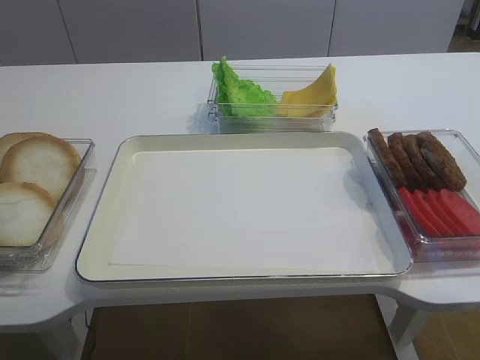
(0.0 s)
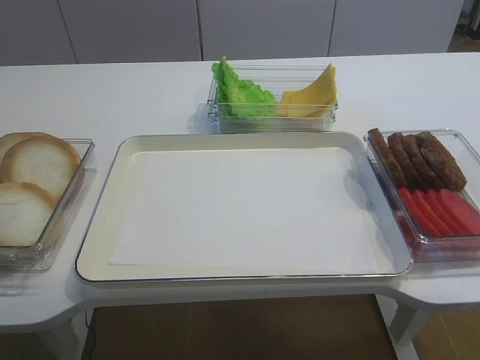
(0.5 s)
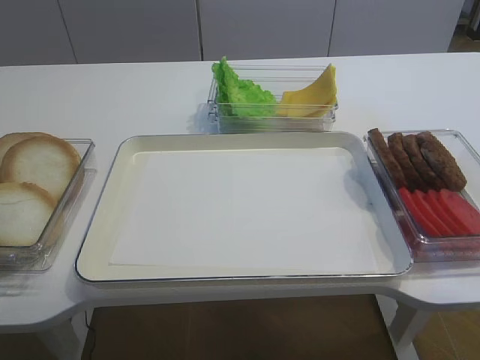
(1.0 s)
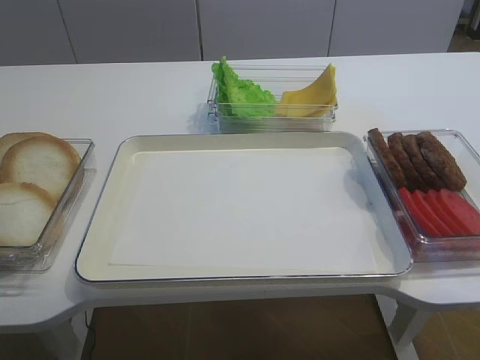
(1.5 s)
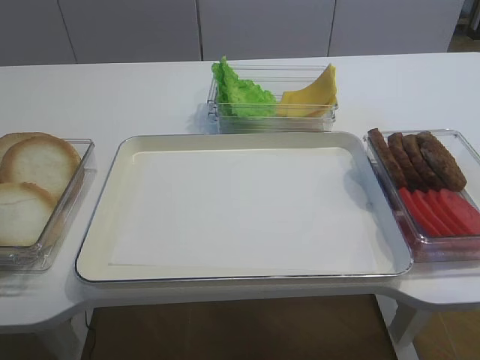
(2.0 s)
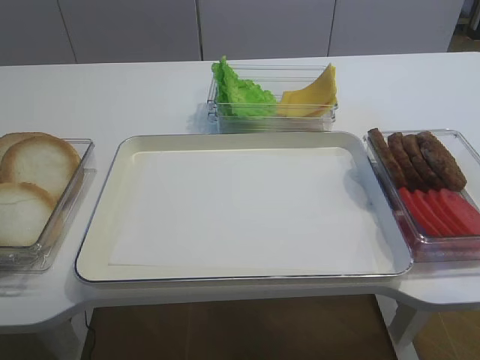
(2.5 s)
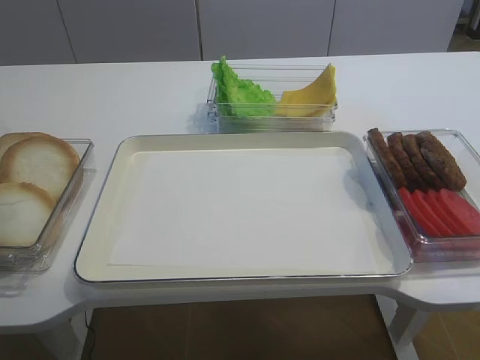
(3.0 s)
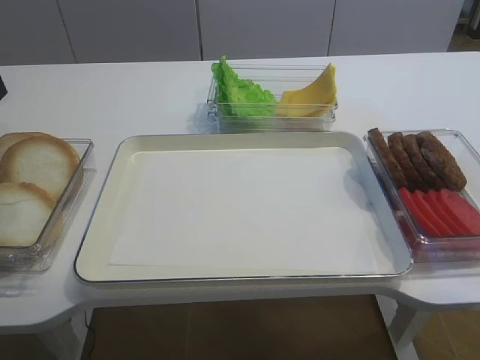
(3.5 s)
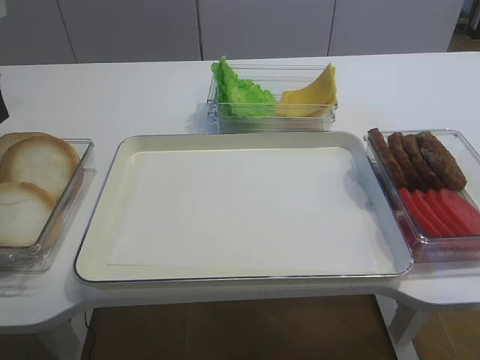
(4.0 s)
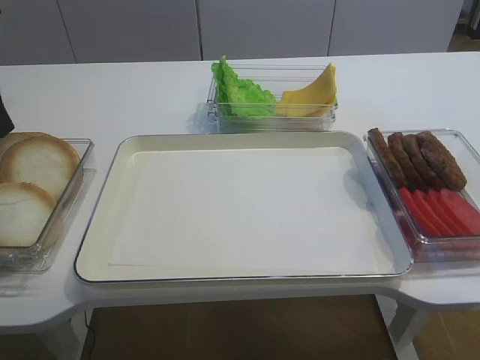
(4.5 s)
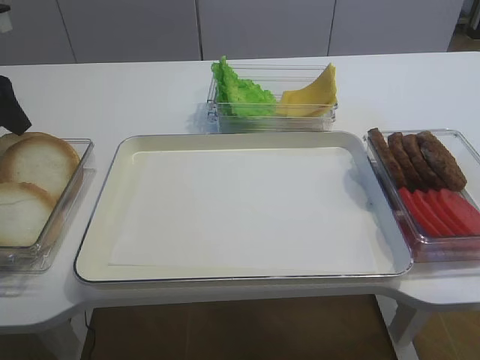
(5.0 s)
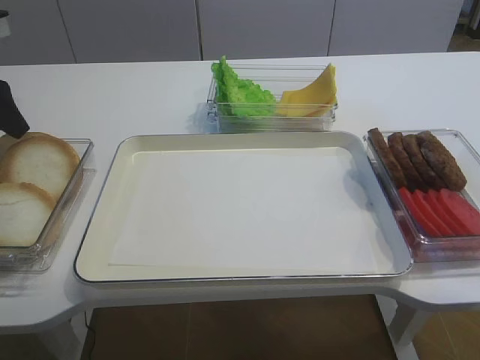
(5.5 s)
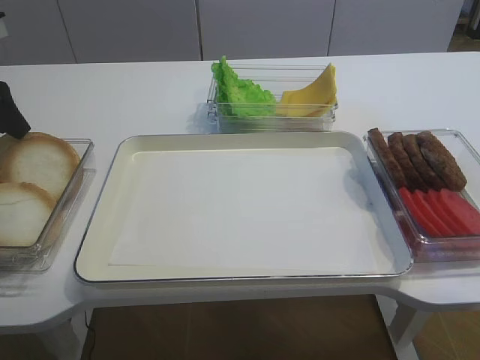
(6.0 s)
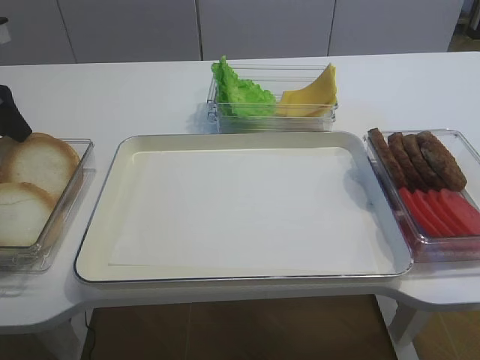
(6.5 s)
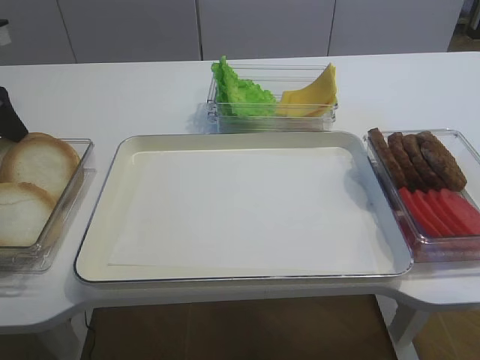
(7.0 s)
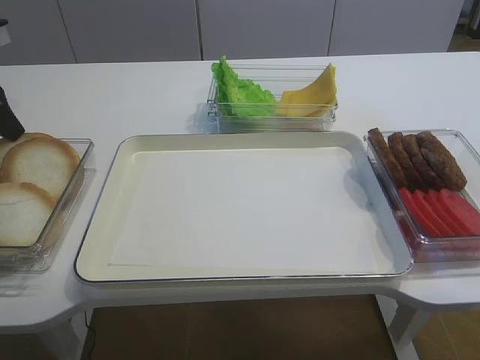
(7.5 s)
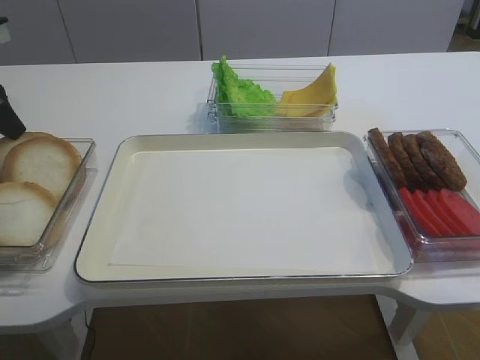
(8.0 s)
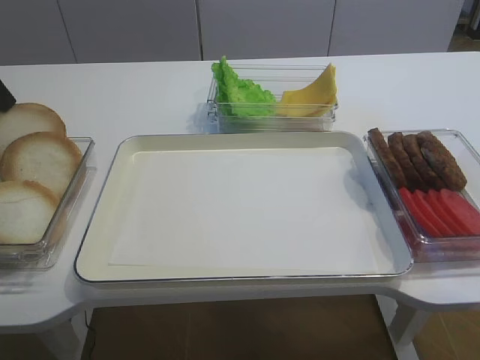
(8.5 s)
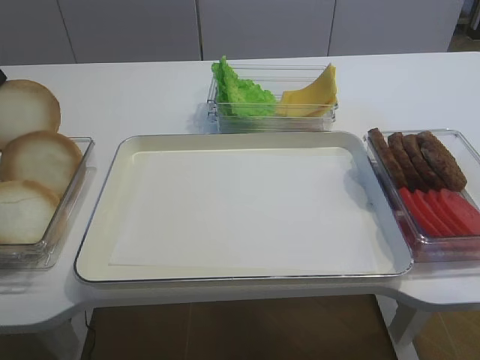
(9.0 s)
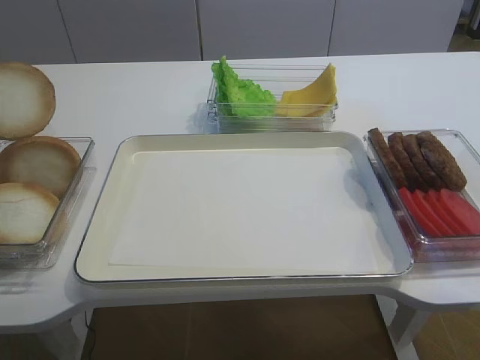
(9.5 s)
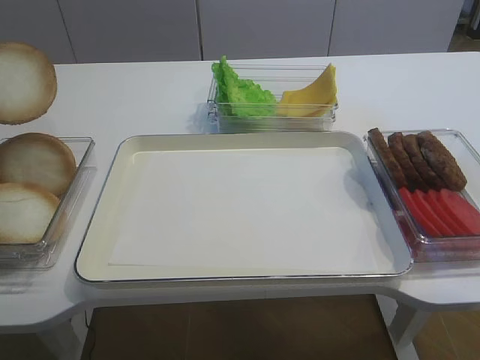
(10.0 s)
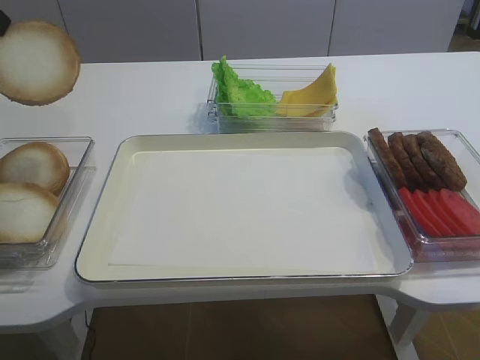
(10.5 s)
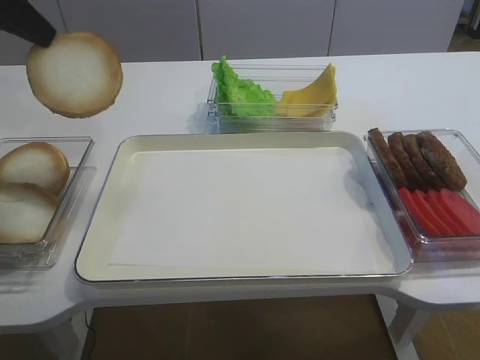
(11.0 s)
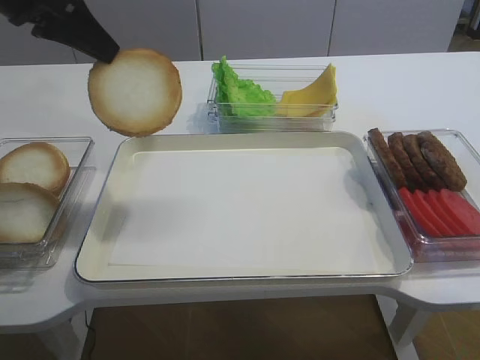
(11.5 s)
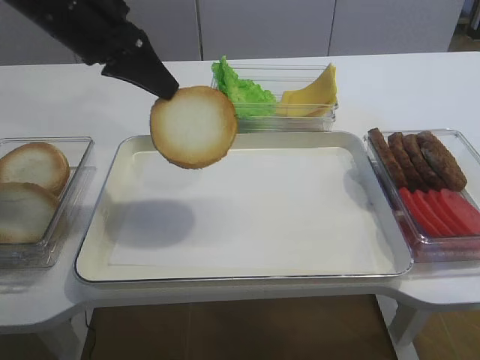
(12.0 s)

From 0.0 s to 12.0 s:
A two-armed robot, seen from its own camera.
Step, from 0.0 s to 9.0 s: Pick up the bread slice with the left gripper.
From 4.0 s to 6.0 s: The left gripper ends up about 5 cm from where it was.
From 8.0 s to 10.0 s: The left gripper goes about 10 cm upward.
From 10.0 s to 12.0 s: The left gripper goes roughly 15 cm to the right.

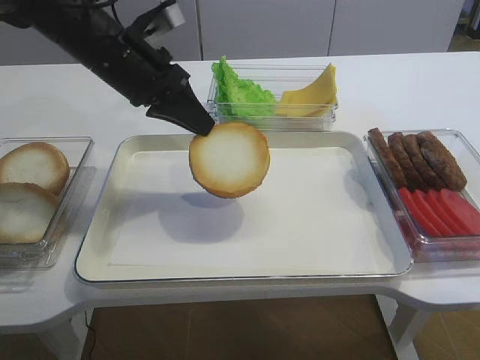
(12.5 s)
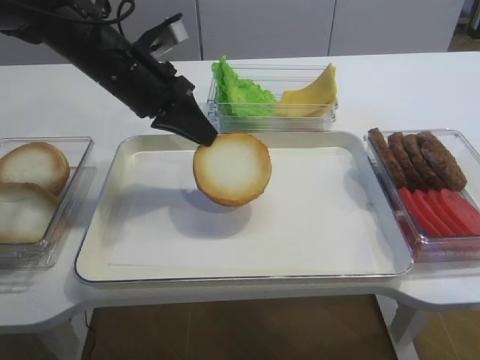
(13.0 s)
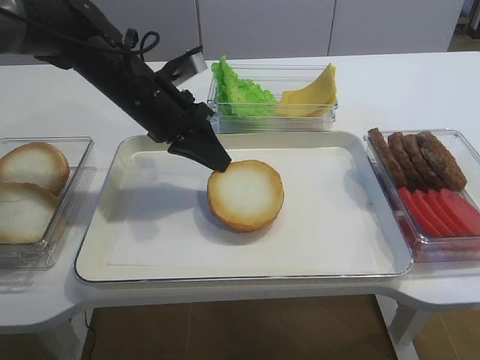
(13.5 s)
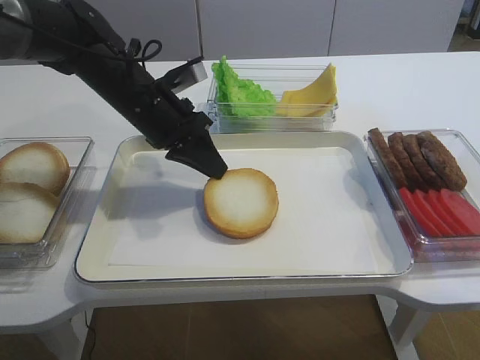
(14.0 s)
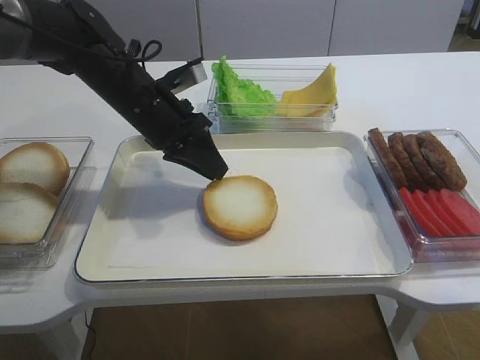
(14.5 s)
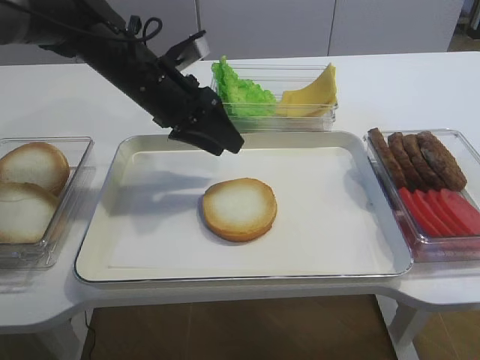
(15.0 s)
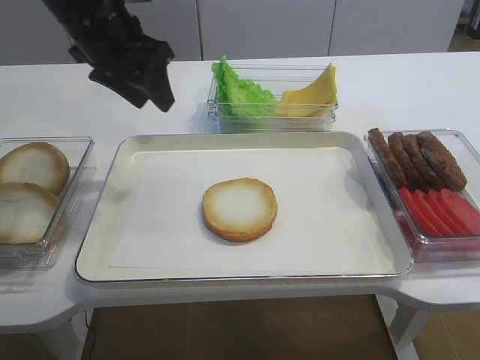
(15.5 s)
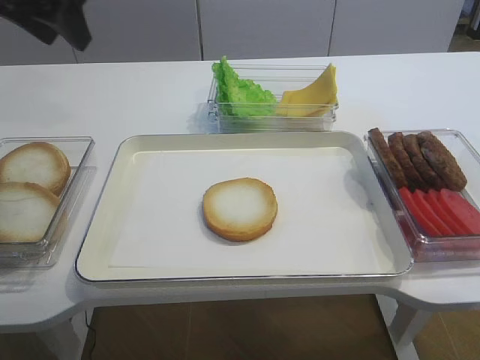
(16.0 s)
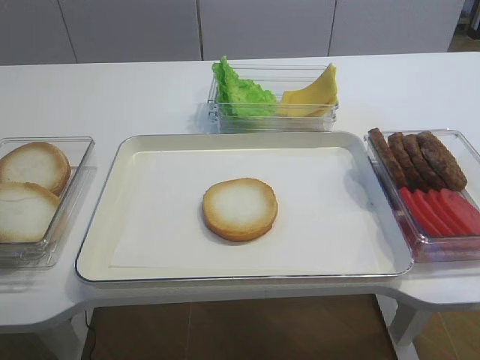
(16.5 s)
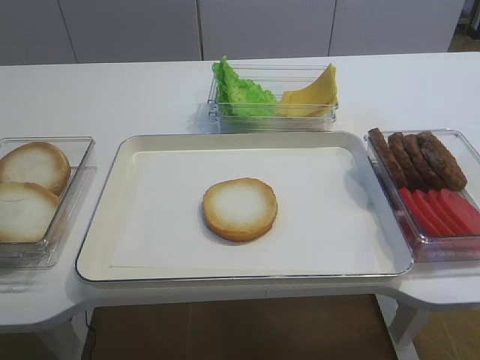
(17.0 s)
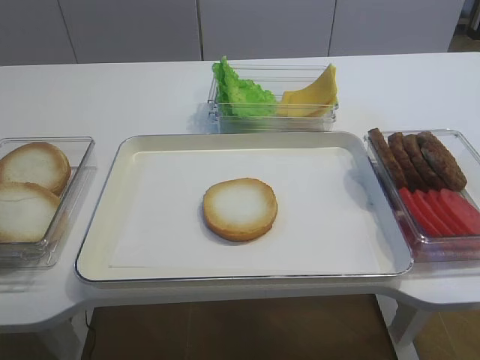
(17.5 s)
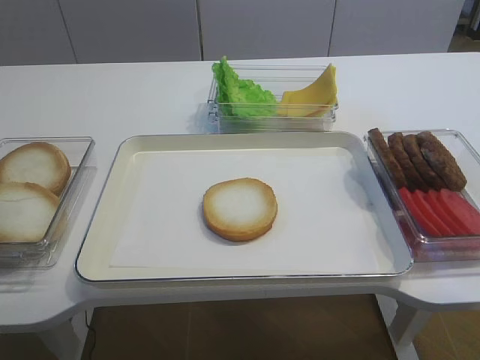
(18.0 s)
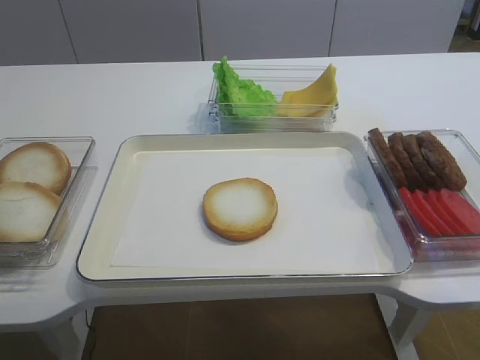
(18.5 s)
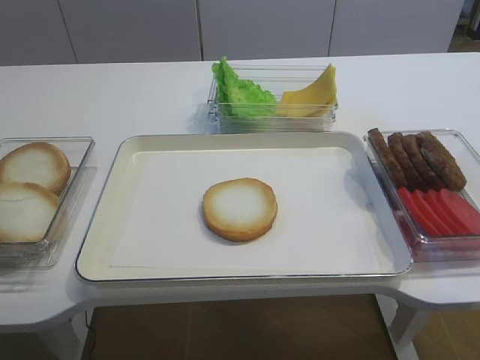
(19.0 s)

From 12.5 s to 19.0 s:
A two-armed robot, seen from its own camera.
Step, from 12.5 s to 14.5 s: Place the bread slice on the tray with the left gripper.
From 12.5 s to 14.5 s: The left gripper heads downward, covering about 5 cm.
From 14.5 s to 17.0 s: The left gripper heads backward, to the left and upward, covering about 35 cm, and opens its fingers.

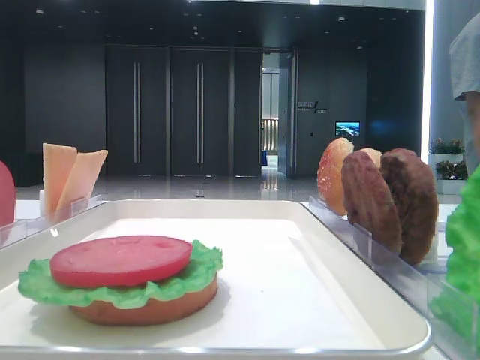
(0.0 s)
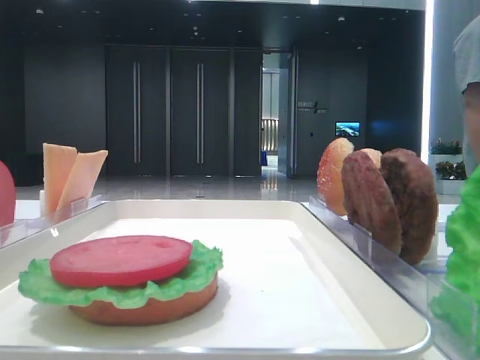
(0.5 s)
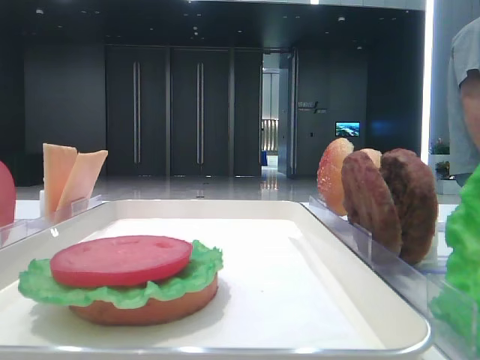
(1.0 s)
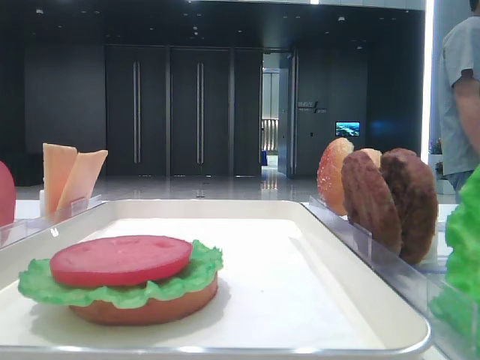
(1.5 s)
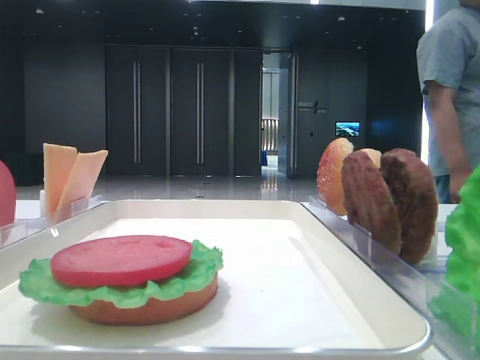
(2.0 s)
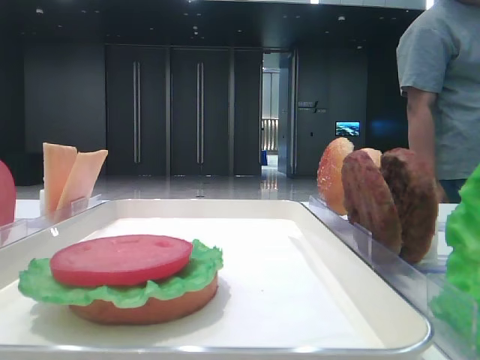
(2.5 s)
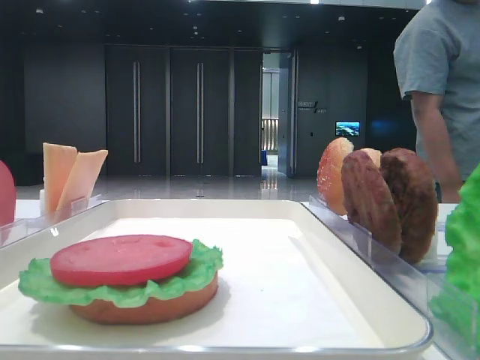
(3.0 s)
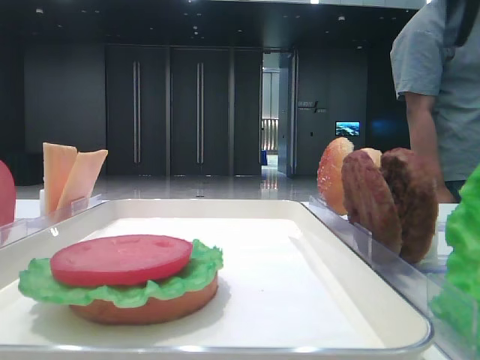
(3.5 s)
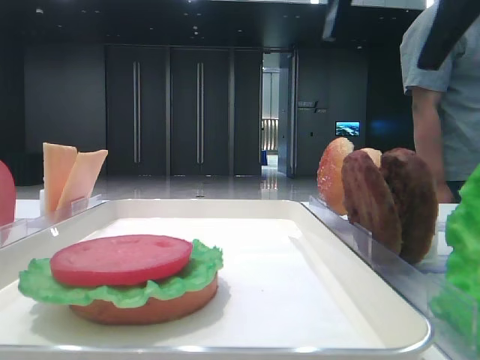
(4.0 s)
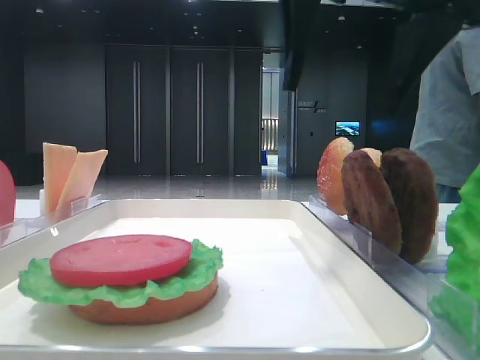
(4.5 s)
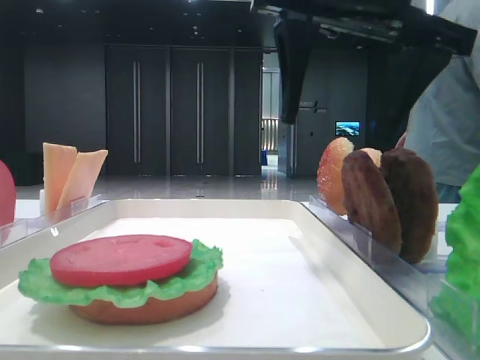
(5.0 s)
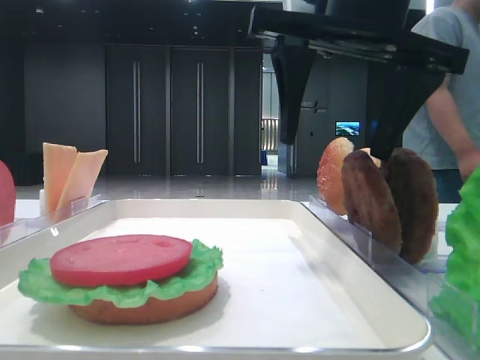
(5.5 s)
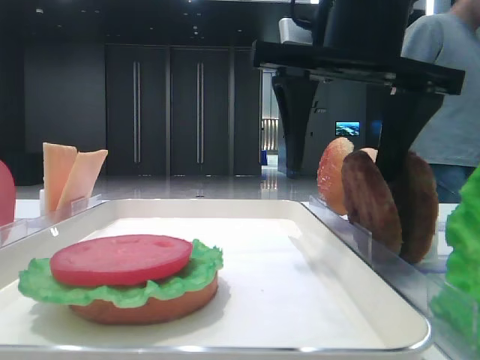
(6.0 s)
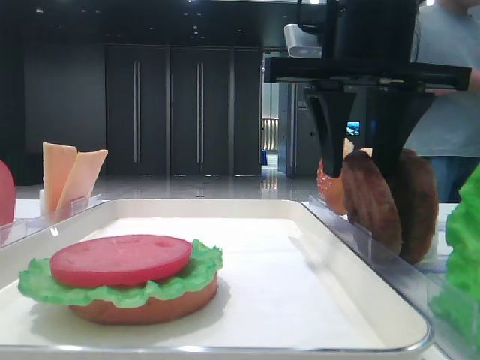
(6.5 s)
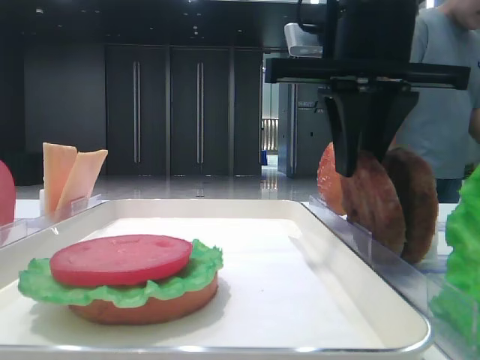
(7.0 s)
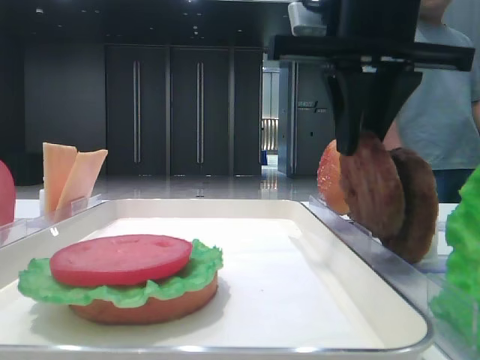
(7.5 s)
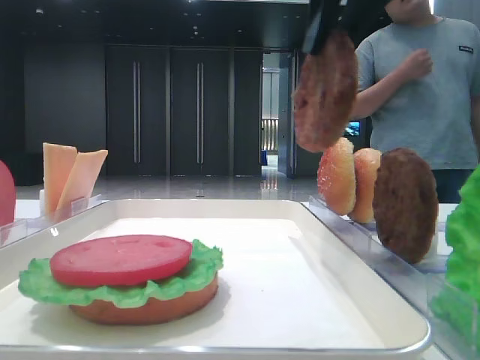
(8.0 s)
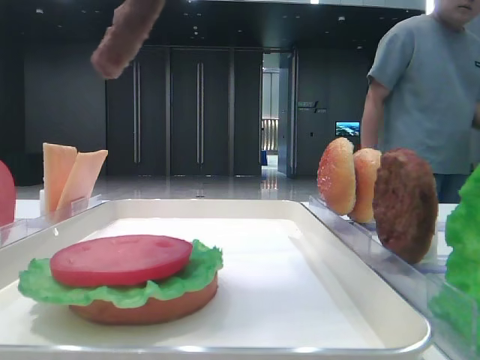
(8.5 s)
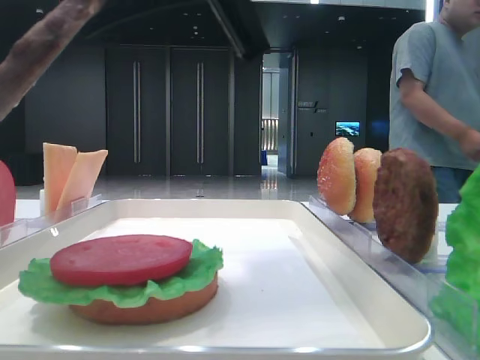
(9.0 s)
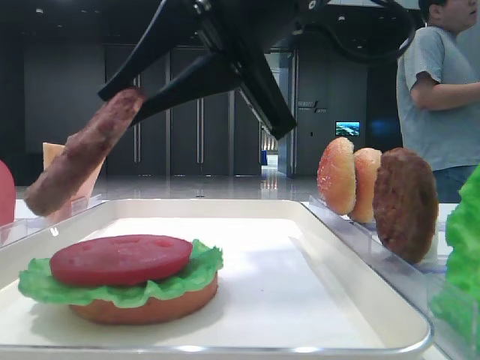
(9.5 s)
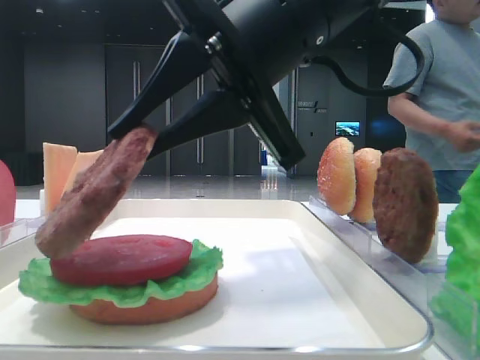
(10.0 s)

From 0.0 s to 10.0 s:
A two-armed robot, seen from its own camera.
Step, from 0.0 s to 6.5 s: Grab the patty with the right hand.
From 2.0 s to 4.0 s: The right gripper moves to the left and forward, roughly 20 cm.
From 4.0 s to 6.0 s: The right gripper goes about 10 cm downward.
From 6.0 s to 8.0 s: The right gripper shifts approximately 10 cm upward, and closes up.
From 8.0 s to 10.0 s: The right gripper moves downward and to the left, approximately 15 cm.
